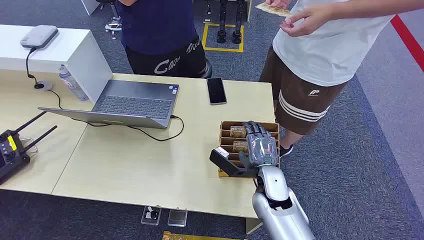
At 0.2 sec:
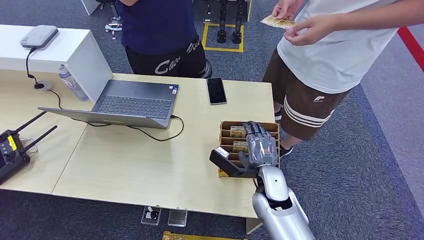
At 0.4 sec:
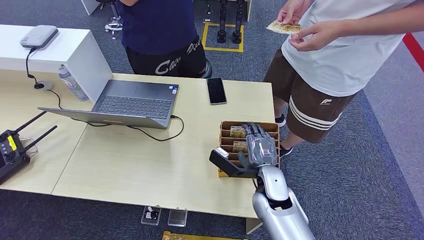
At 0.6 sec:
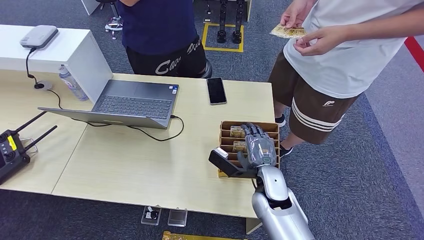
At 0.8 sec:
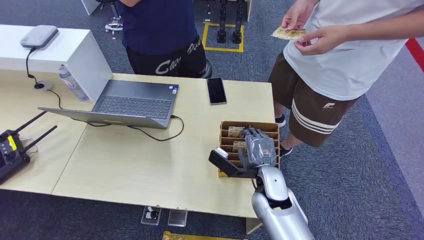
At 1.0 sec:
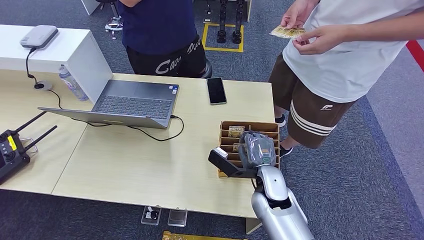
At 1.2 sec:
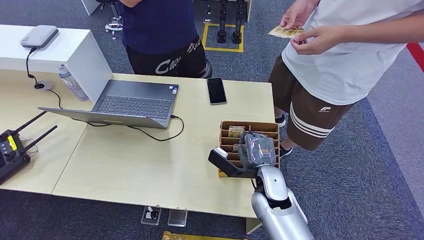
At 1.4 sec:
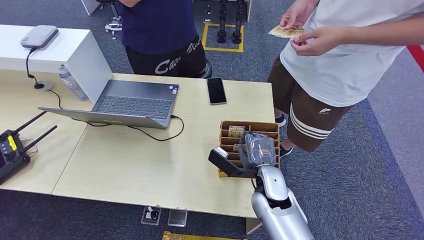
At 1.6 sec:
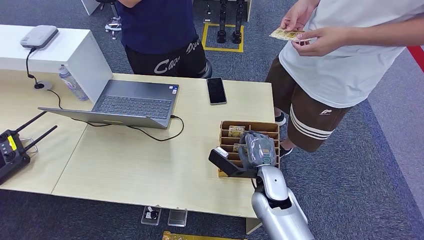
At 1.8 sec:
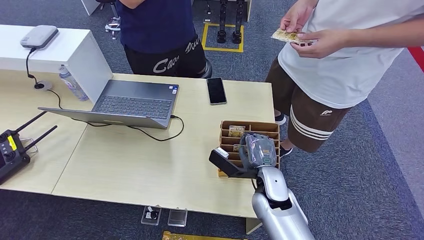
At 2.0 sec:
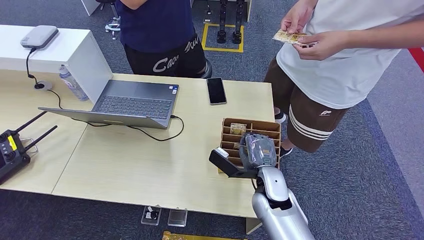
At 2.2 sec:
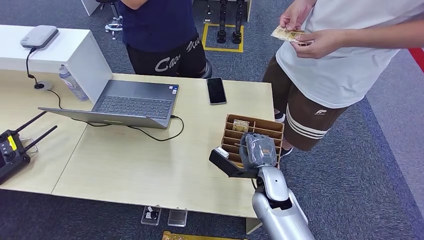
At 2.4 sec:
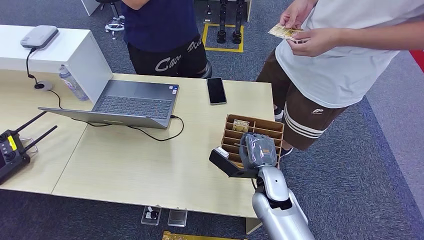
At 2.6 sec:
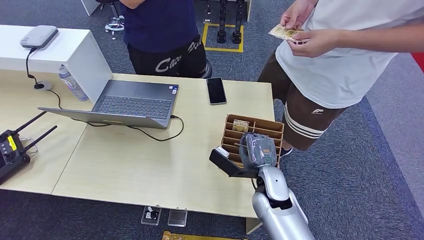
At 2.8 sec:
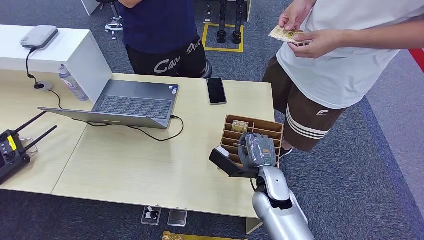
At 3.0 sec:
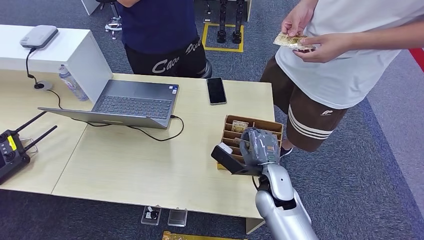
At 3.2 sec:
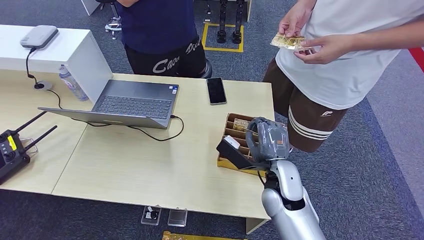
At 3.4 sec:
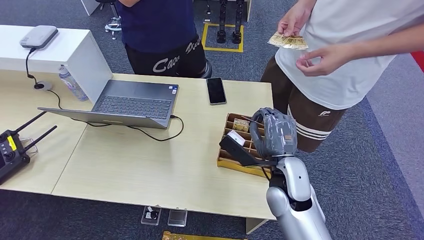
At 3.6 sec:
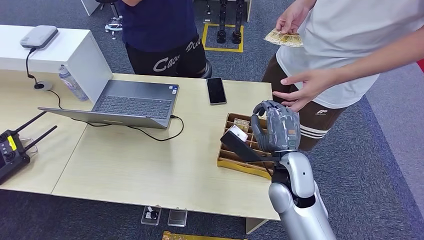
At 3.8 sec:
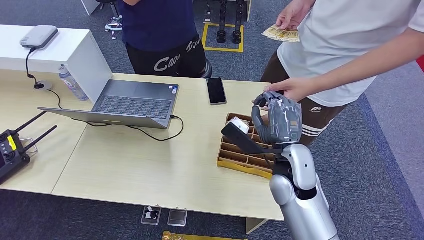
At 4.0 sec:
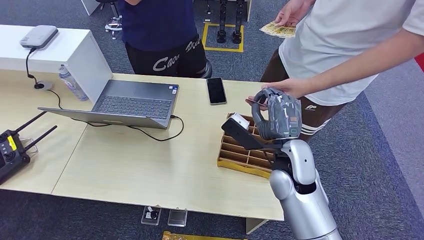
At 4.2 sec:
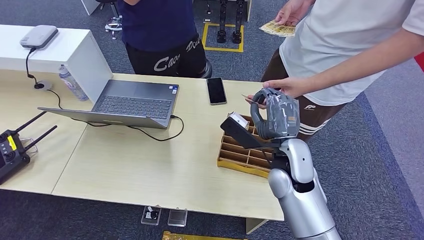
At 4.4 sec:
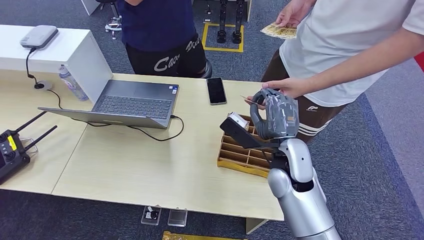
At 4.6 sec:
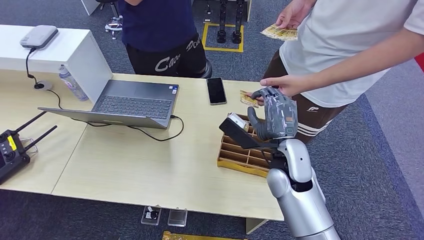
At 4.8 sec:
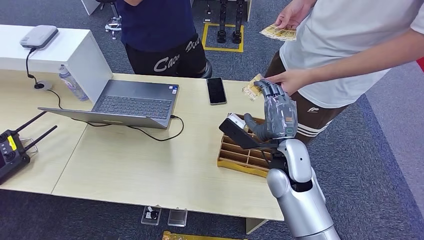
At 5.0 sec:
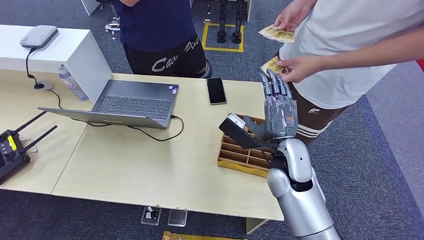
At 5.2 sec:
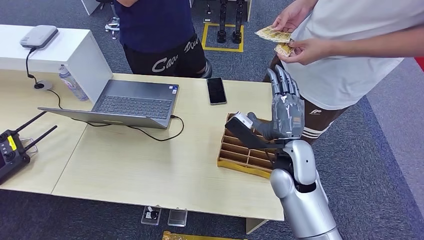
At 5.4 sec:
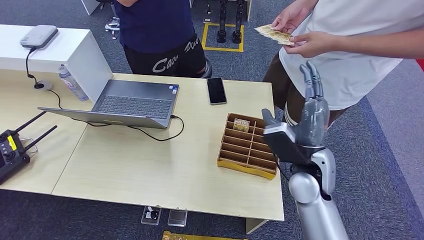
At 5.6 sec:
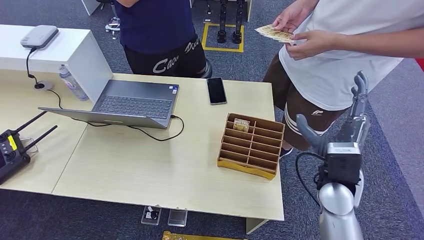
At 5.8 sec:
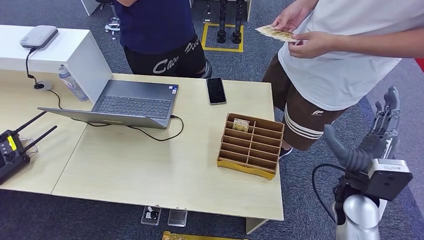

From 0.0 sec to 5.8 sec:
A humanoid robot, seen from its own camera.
Step, from 0.0 sec to 3.4 sec: Pick up the key card from the card box.
Step, from 3.6 sec to 5.8 sec: Hand the key card to the target.
From 1.4 sec to 2.8 sec: The hands move only a little.
From 2.8 sec to 4.4 sec: The right hand heads upward, covering about 10 cm.
From 4.4 sec to 5.8 sec: The right hand heads to the right, covering roughly 15 cm.

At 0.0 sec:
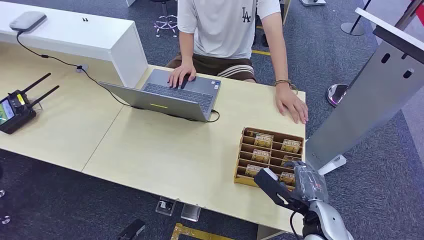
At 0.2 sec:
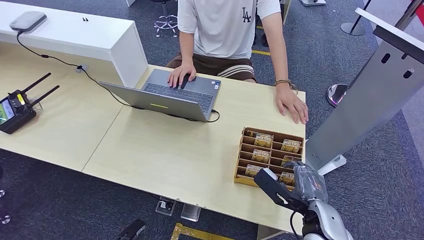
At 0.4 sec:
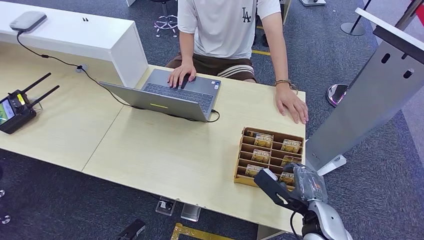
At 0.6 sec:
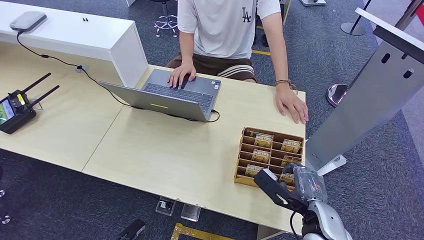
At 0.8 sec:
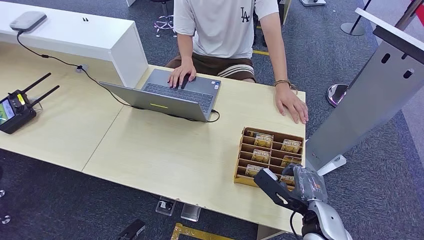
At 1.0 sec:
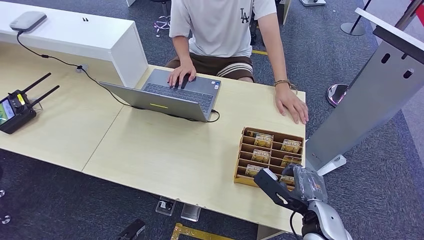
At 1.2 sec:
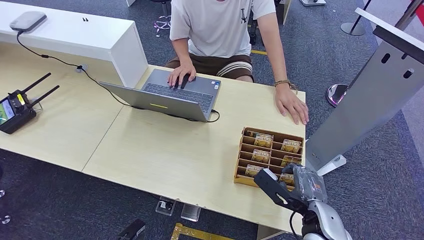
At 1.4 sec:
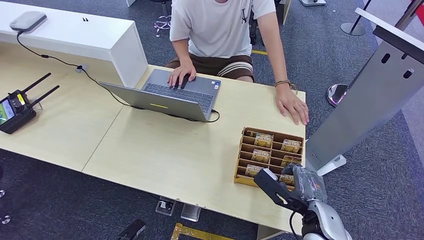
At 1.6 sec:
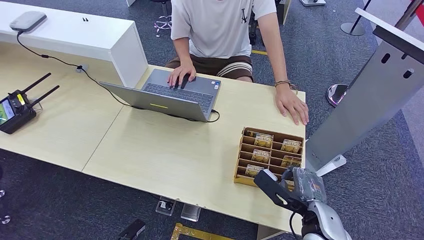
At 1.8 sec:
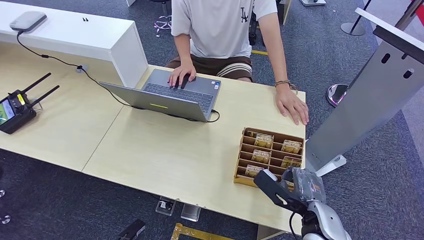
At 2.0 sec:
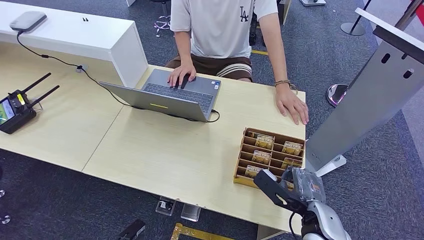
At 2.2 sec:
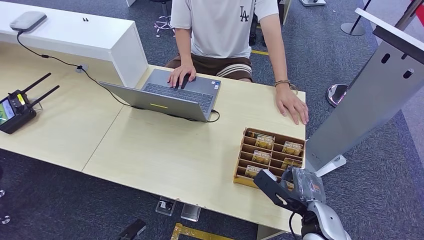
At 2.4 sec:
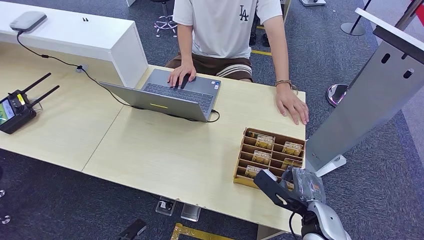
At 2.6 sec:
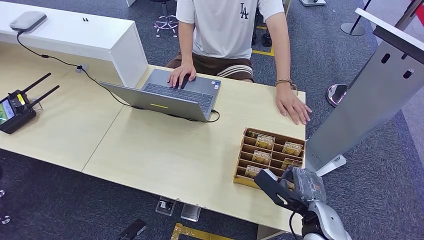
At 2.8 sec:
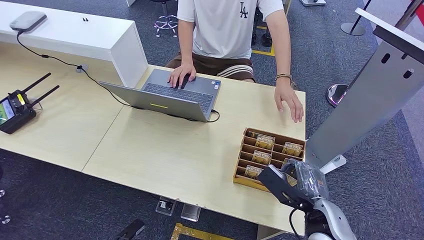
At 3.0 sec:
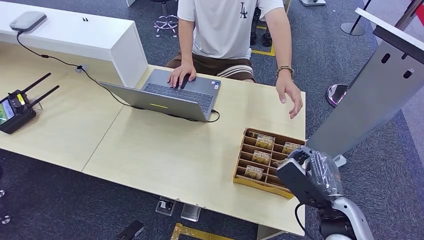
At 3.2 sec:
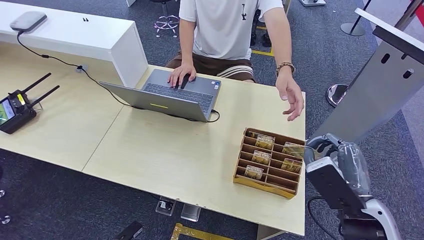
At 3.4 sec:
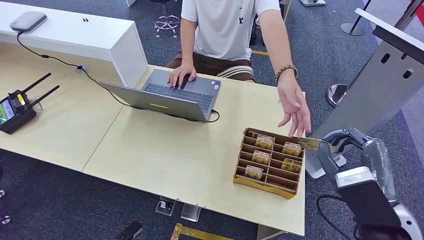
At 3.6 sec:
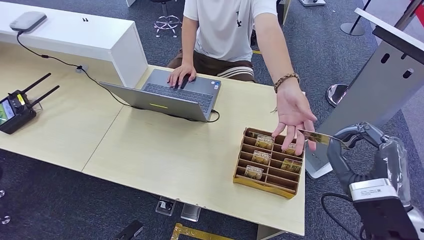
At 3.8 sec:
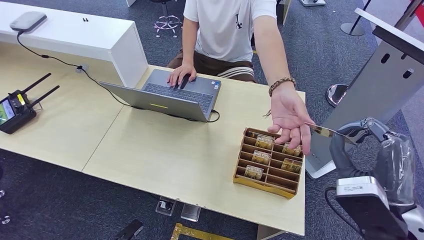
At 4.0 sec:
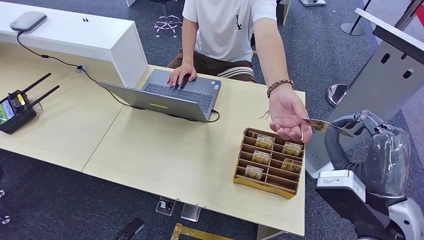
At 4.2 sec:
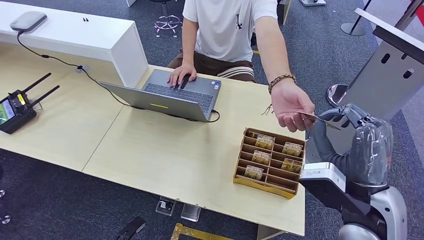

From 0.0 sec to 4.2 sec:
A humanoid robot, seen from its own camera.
Step, from 0.0 sec to 3.0 sec: Pick up the key card from the card box.
Step, from 3.2 sec to 4.2 sec: Hand the key card to the target.
From 1.4 sec to 2.8 sec: The hands make only small movements.
From 2.8 sec to 4.2 sec: The right hand travels upward by about 15 cm.
